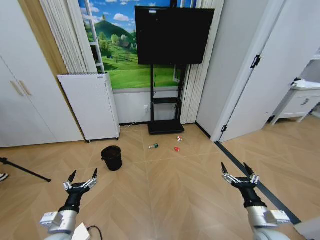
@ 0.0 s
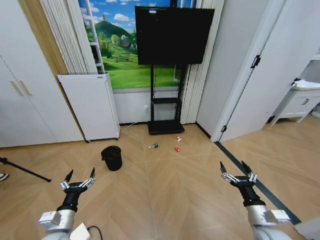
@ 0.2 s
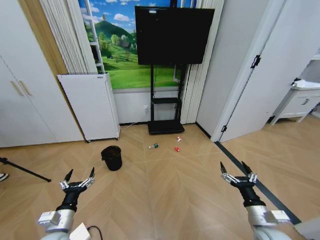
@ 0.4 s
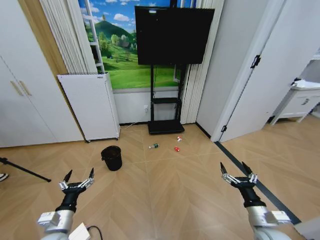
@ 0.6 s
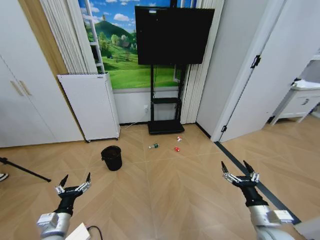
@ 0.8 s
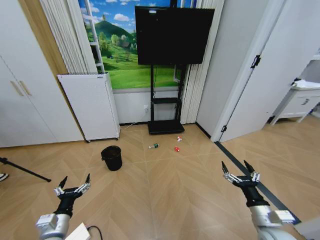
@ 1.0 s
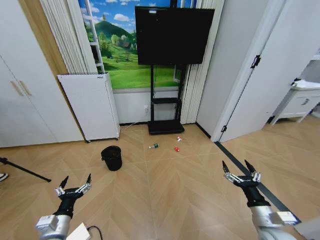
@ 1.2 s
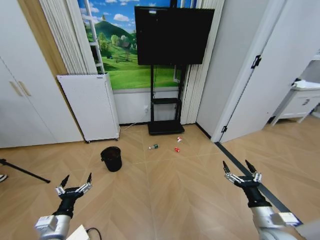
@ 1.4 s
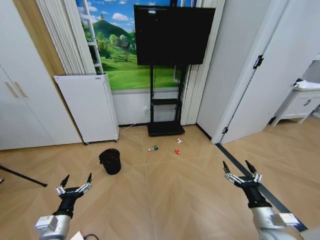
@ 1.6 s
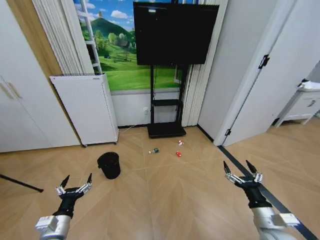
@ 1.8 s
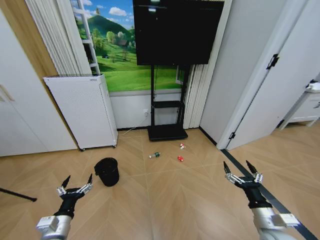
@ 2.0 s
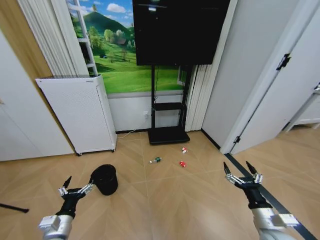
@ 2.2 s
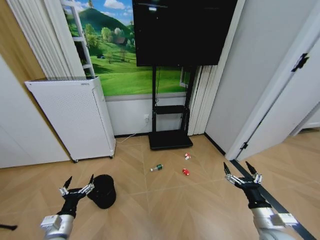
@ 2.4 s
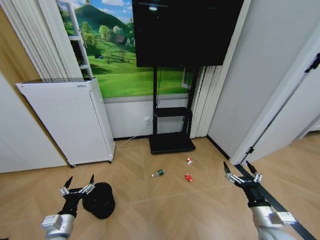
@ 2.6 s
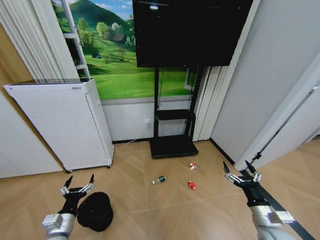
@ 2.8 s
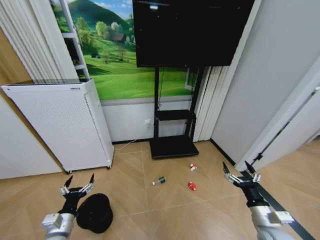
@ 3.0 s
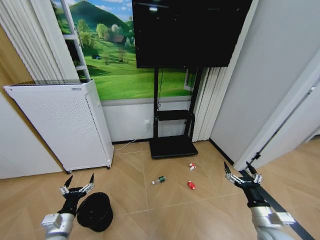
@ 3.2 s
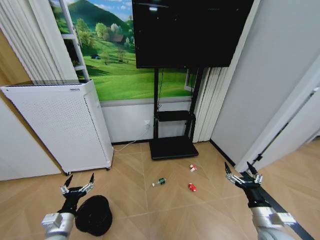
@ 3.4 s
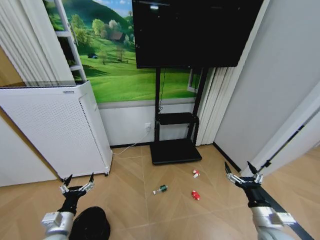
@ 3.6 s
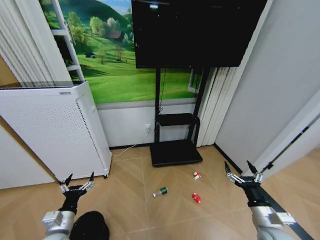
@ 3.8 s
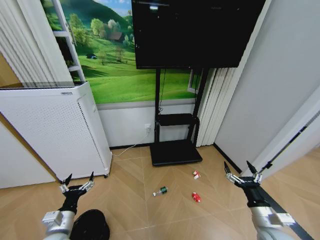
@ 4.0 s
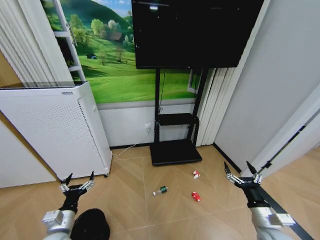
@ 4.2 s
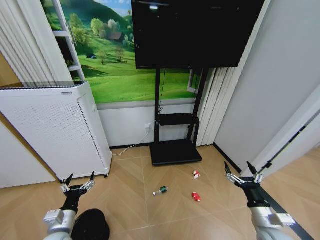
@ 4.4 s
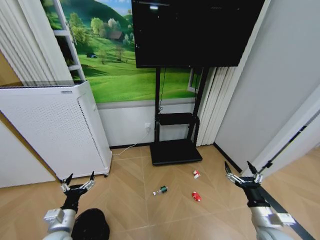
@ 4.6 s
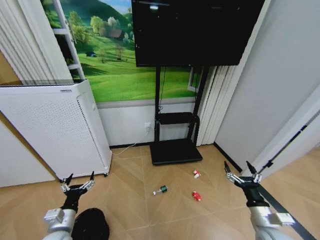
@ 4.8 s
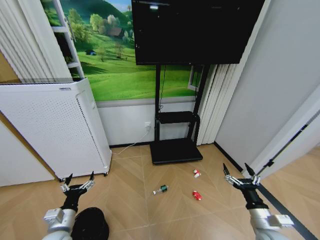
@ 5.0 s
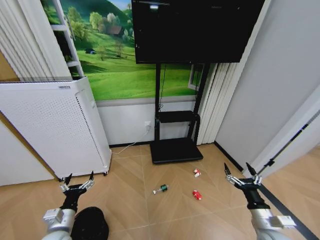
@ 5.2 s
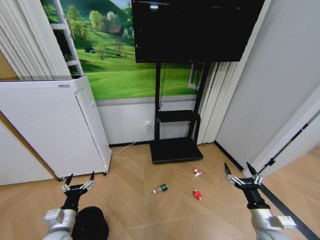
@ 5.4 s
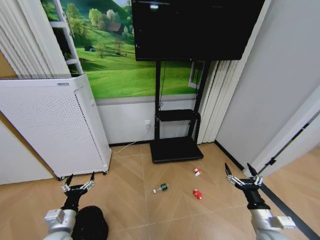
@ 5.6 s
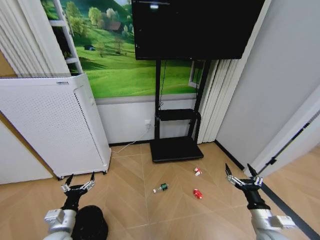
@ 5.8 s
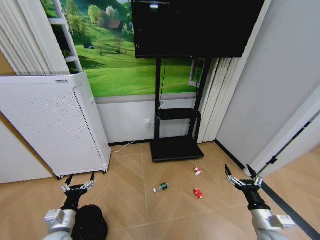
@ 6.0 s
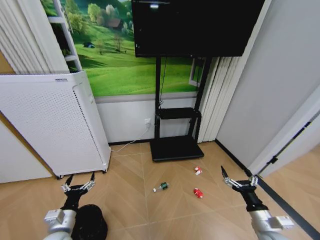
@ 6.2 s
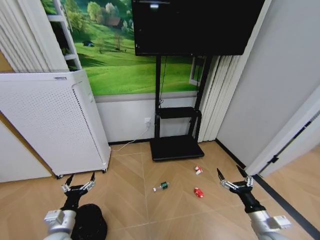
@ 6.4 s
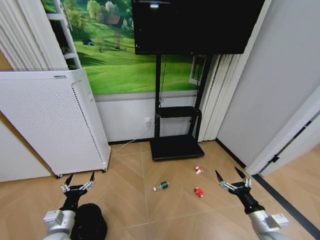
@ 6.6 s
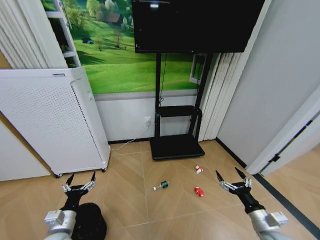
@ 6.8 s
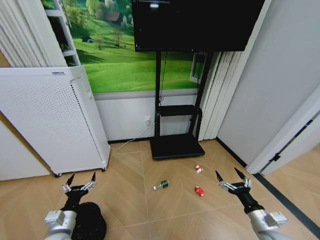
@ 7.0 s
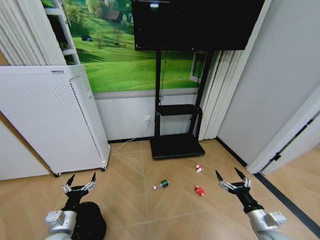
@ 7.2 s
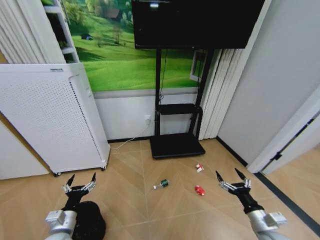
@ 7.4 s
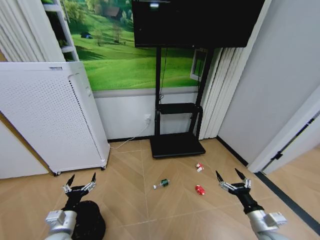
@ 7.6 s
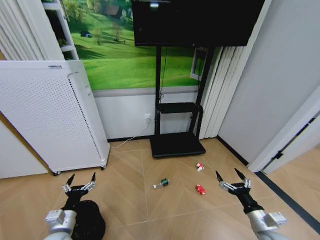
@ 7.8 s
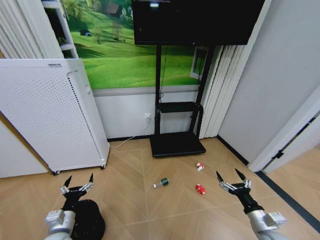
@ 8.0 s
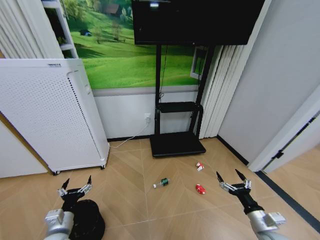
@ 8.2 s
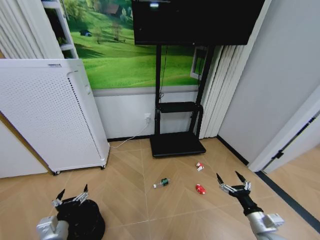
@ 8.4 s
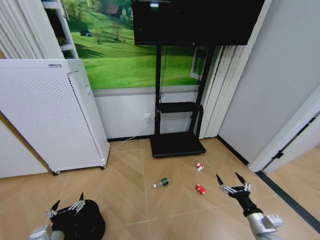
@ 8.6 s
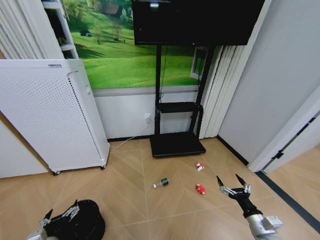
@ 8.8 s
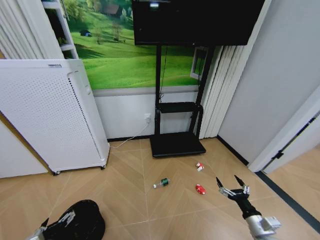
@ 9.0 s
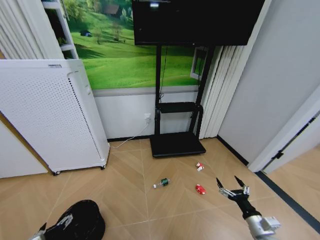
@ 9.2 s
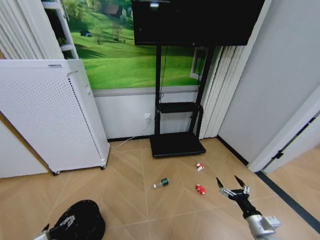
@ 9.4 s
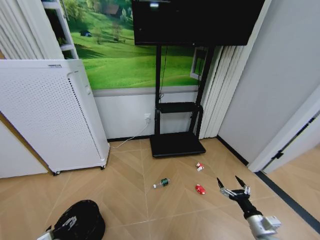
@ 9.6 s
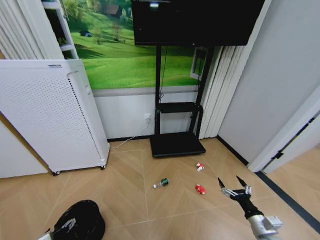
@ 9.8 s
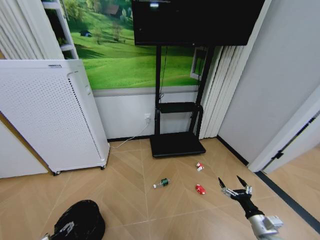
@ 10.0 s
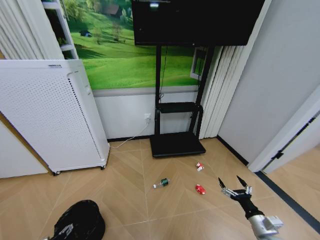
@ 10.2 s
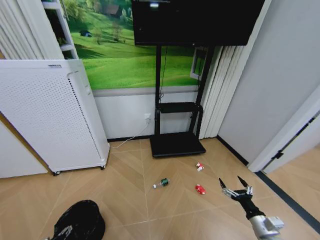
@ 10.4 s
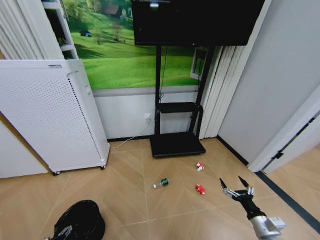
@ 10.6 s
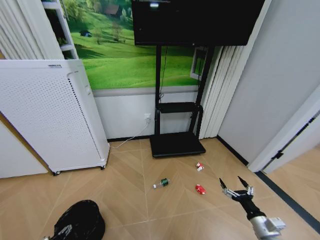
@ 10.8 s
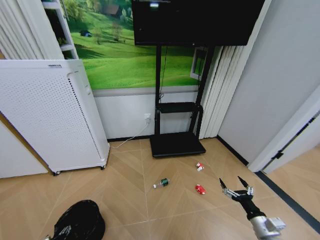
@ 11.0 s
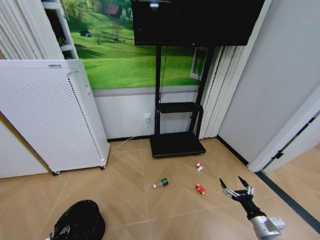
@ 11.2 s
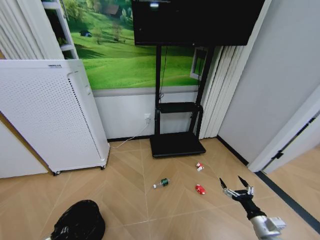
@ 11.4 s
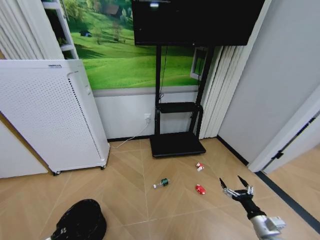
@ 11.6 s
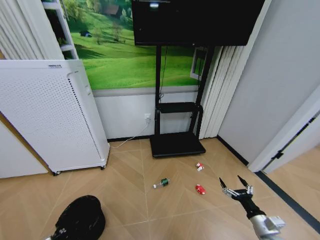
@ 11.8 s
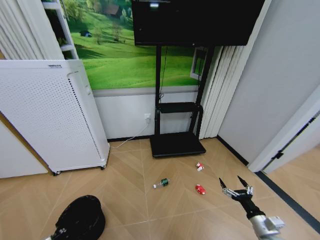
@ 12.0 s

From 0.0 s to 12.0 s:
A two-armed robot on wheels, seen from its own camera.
Task of the whole recording: Pick up the trash bin and place the garbage on the floor into it.
From 4.4 s to 6.0 s: The two grippers keep their place.
From 6.0 s to 7.6 s: The grippers move only a little.
From 7.6 s to 9.0 s: The left gripper travels backward by approximately 5 cm.
From 9.0 s to 10.4 s: The left gripper travels downward by some 10 cm.
From 10.4 s to 12.0 s: The left gripper closes.

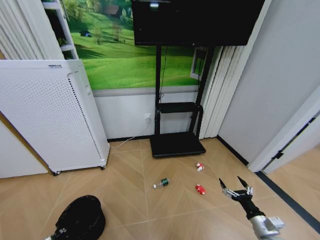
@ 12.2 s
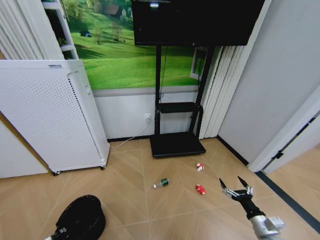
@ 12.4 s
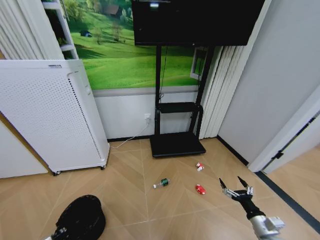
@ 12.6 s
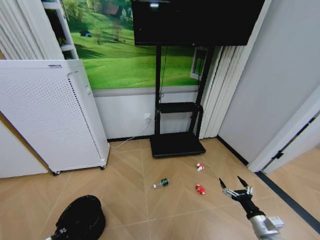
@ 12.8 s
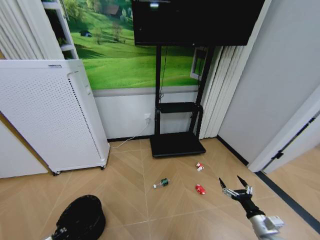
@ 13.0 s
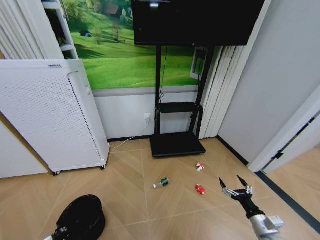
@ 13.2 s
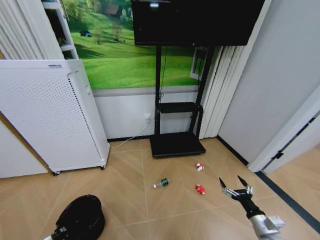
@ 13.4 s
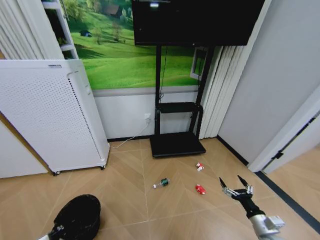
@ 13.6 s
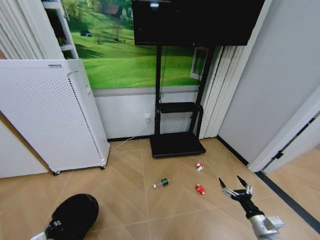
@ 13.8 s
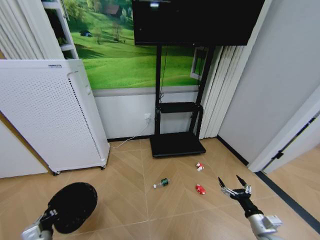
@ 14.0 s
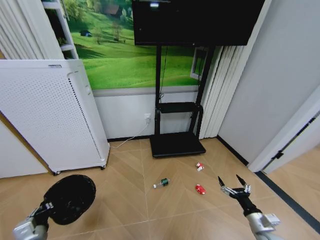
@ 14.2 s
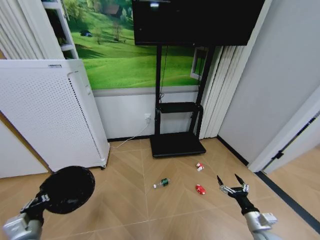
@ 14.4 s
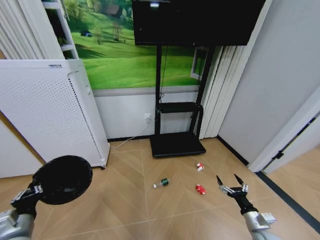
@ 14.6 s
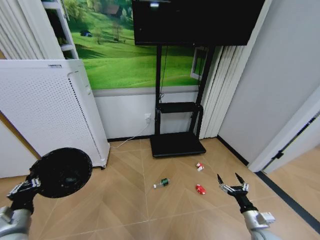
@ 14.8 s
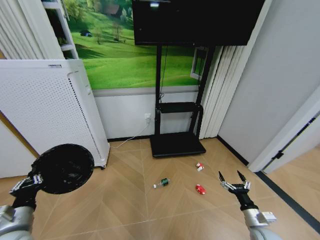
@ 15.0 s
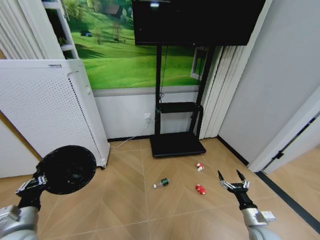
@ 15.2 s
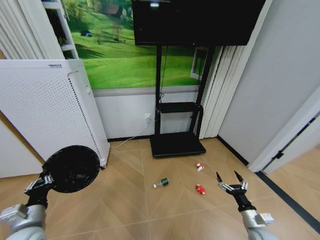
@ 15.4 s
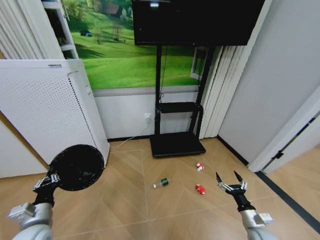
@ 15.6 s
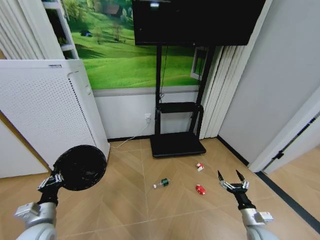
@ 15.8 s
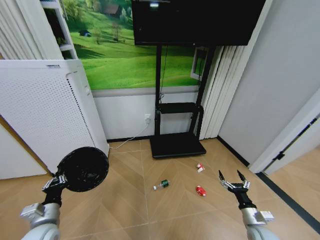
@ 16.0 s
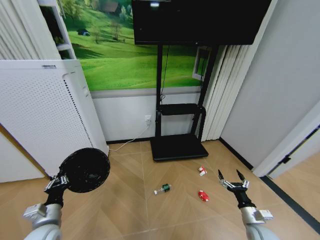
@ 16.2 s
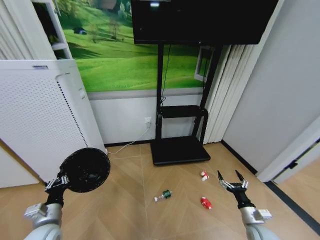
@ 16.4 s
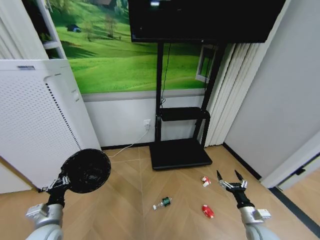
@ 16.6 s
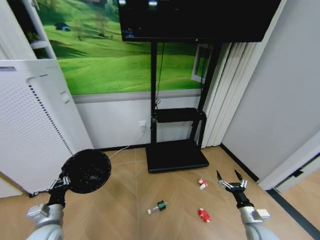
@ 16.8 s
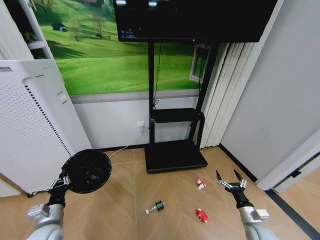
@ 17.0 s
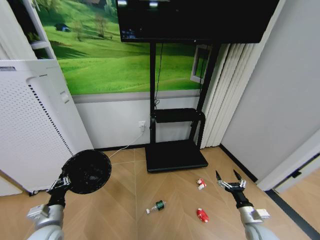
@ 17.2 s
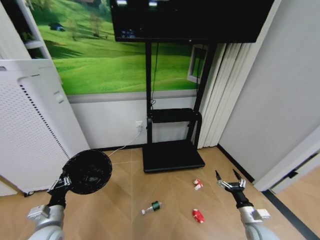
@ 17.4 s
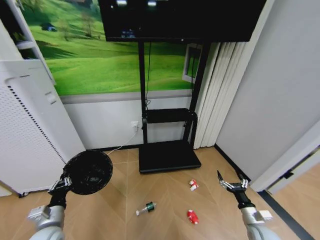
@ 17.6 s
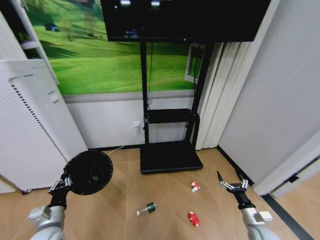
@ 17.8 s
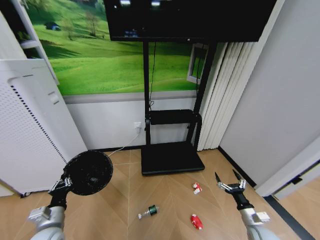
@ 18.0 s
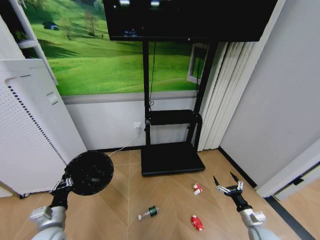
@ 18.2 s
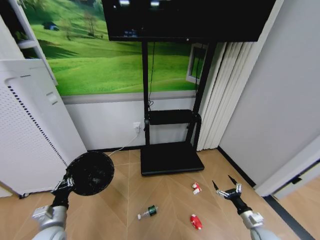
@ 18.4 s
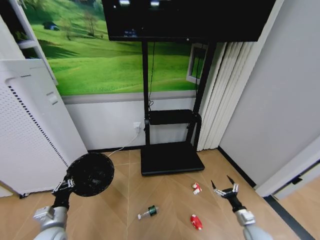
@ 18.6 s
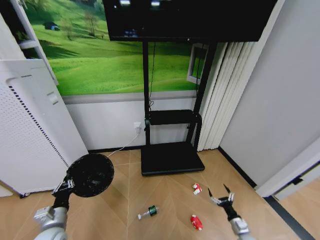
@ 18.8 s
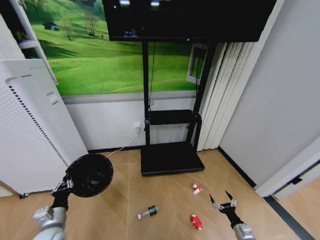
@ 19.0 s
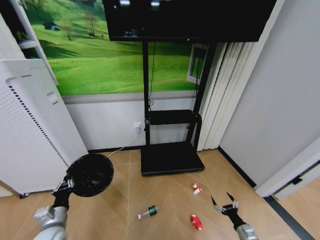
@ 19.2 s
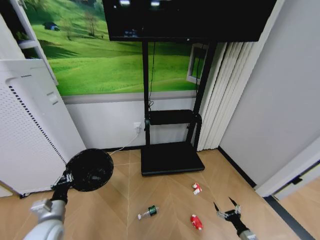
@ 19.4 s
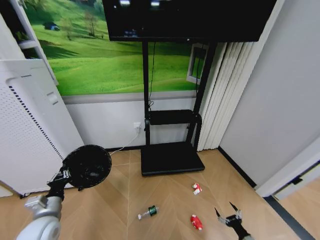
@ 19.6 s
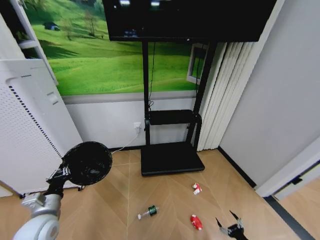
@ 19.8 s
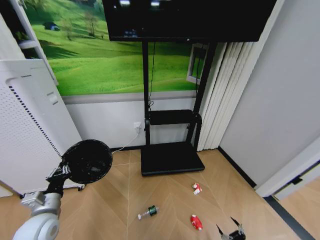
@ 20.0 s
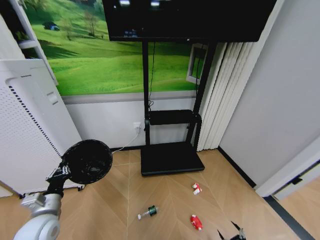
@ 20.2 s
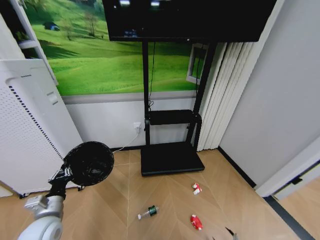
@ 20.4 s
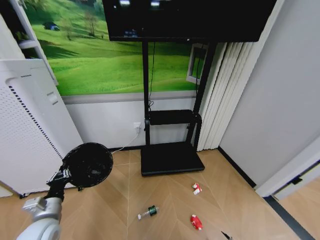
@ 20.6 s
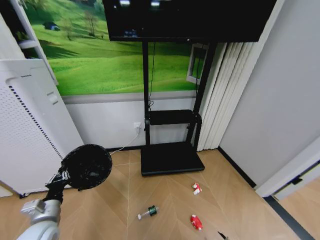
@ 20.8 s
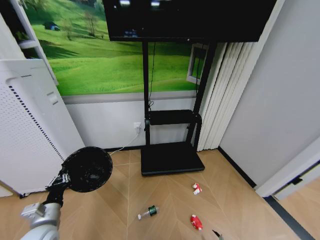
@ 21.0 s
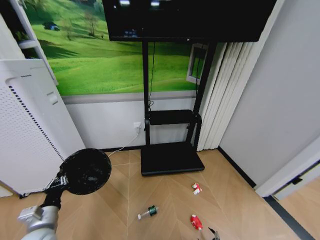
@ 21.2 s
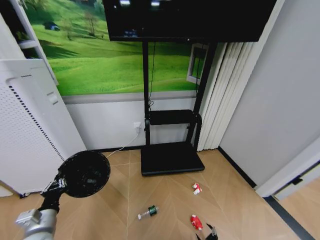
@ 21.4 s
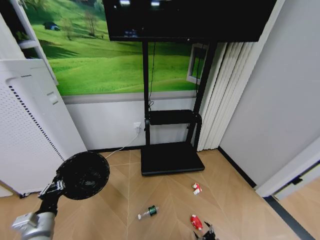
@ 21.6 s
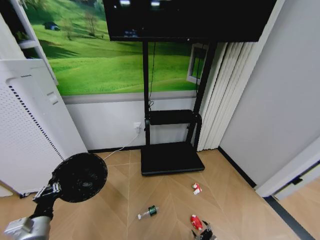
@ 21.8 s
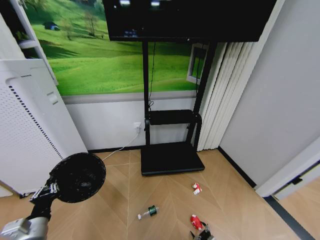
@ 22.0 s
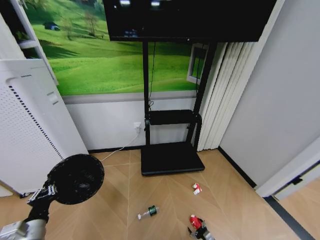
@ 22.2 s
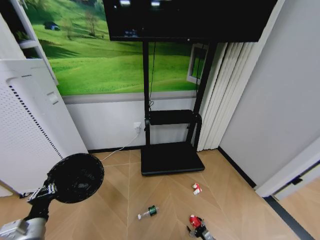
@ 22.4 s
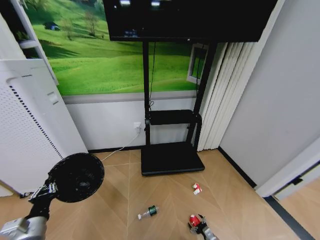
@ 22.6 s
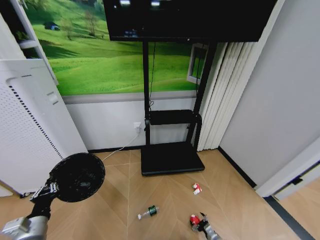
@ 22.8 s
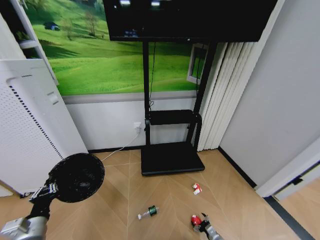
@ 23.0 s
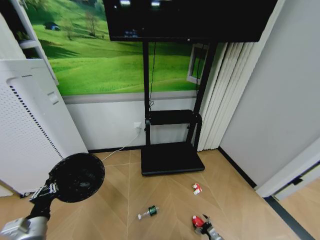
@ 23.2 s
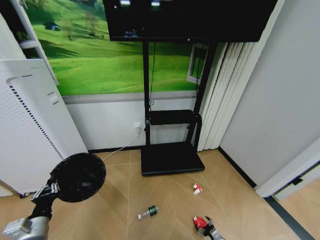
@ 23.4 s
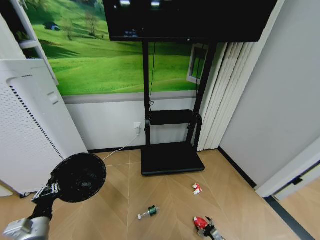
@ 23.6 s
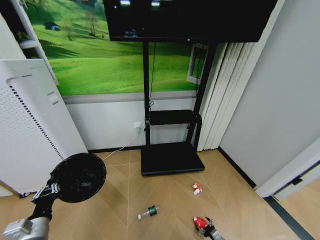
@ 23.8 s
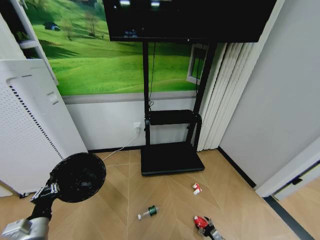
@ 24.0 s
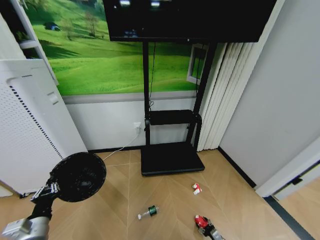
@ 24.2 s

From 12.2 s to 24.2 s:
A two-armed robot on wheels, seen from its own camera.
Task of the whole recording: Pick up the trash bin and place the garbage on the floor into it.
From 12.2 s to 13.8 s: There are only small adjustments of the grippers.
From 13.8 s to 15.2 s: The left gripper goes some 20 cm upward.
From 15.2 s to 16.6 s: The left gripper shifts roughly 5 cm downward.
From 18.2 s to 19.8 s: The left gripper ends up about 5 cm from where it was. The right gripper travels downward and backward by about 15 cm.
From 19.8 s to 21.2 s: The right gripper is displaced downward and to the left by about 10 cm.
From 21.2 s to 22.6 s: The right gripper heads forward, covering about 10 cm.
From 22.6 s to 24.2 s: The right gripper closes its fingers.
